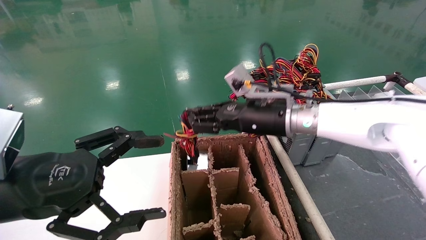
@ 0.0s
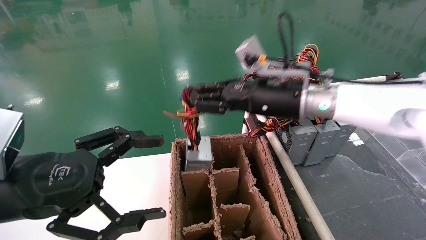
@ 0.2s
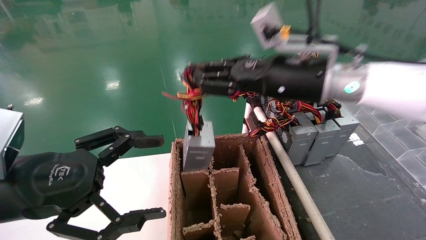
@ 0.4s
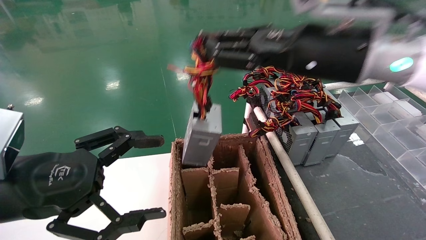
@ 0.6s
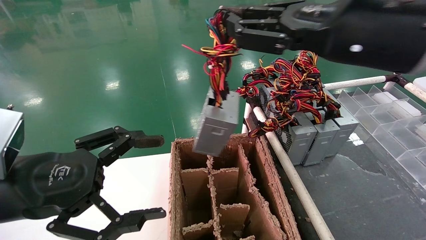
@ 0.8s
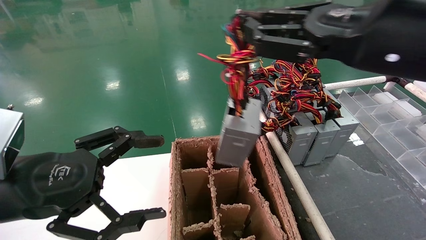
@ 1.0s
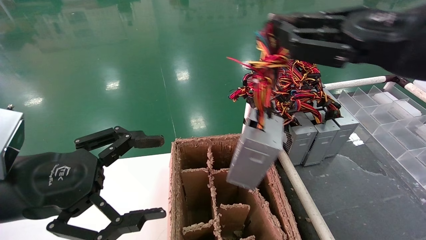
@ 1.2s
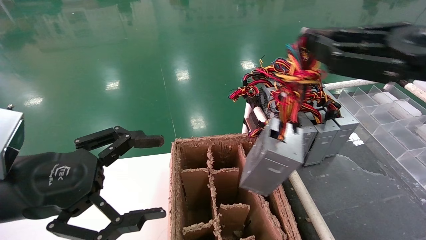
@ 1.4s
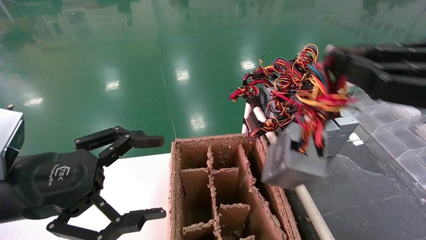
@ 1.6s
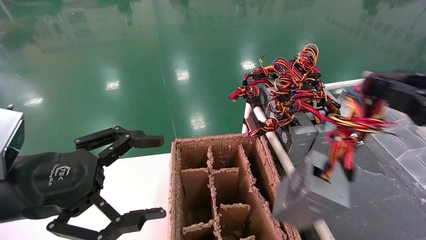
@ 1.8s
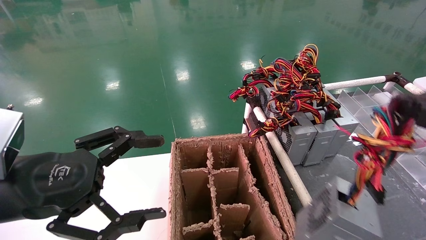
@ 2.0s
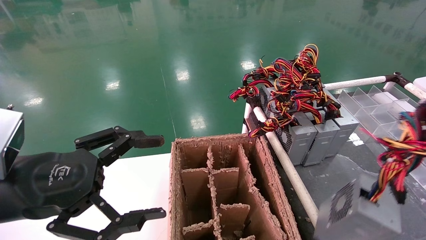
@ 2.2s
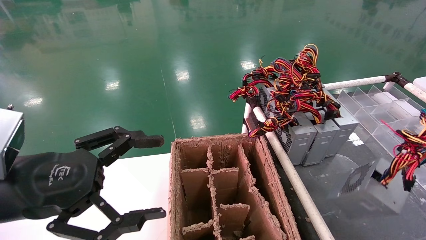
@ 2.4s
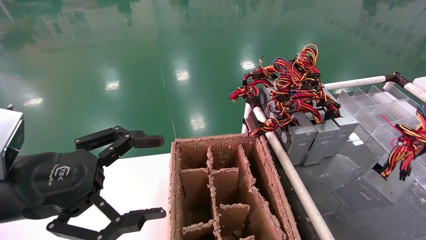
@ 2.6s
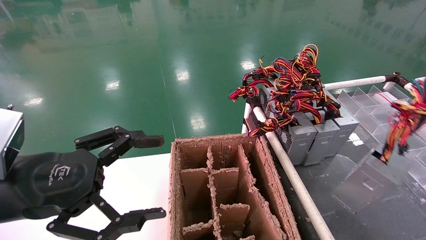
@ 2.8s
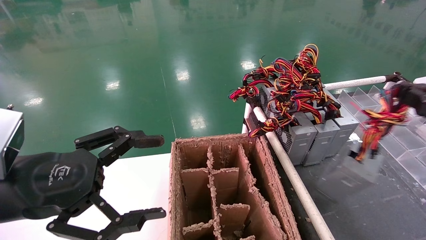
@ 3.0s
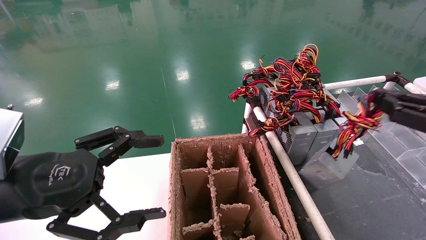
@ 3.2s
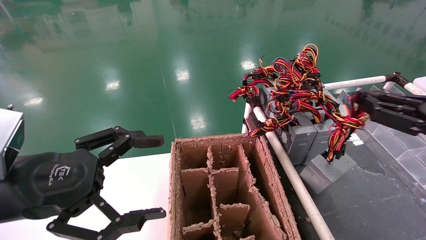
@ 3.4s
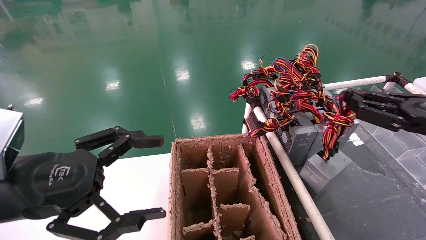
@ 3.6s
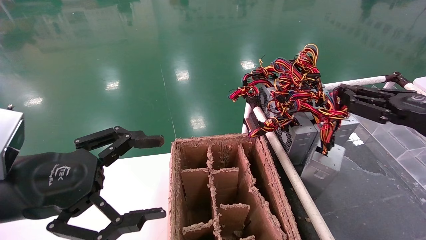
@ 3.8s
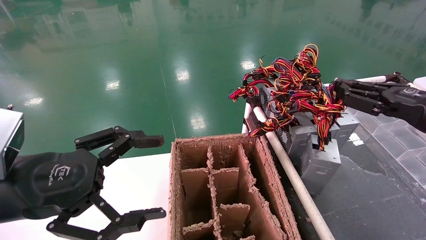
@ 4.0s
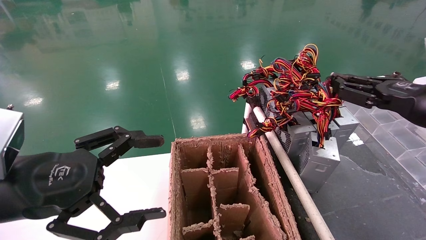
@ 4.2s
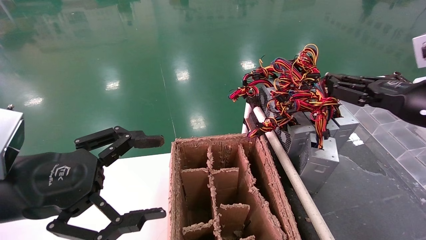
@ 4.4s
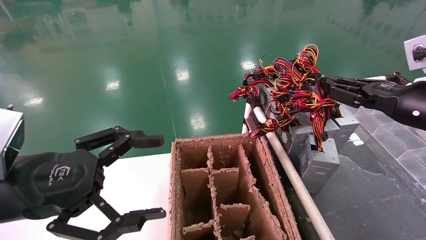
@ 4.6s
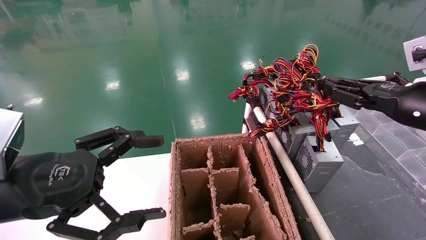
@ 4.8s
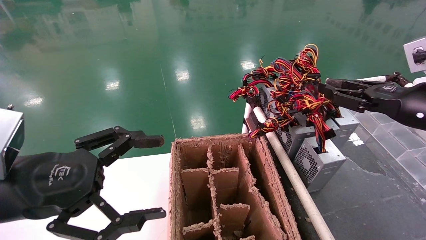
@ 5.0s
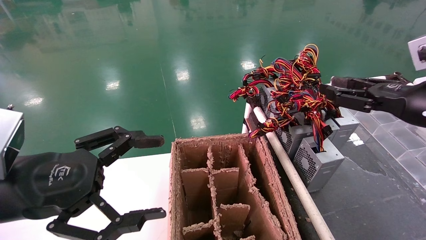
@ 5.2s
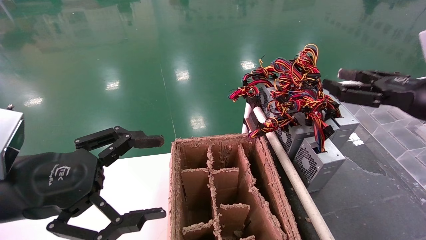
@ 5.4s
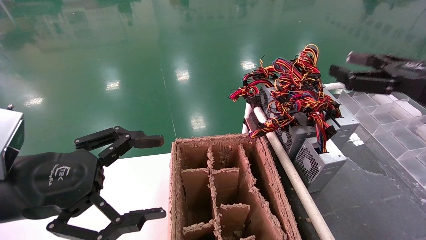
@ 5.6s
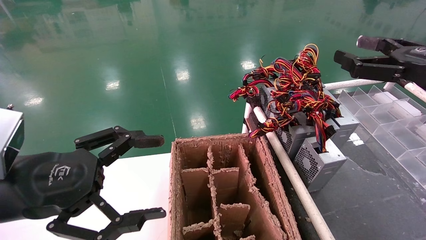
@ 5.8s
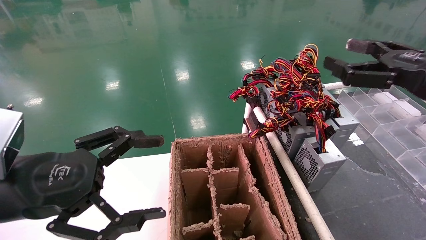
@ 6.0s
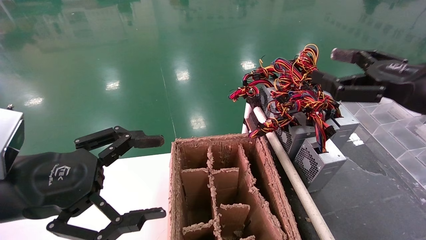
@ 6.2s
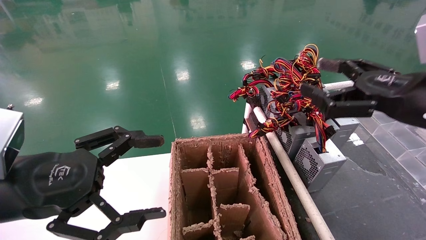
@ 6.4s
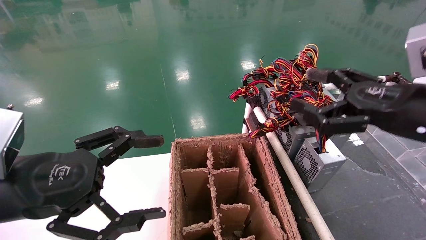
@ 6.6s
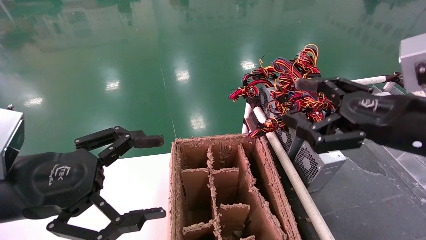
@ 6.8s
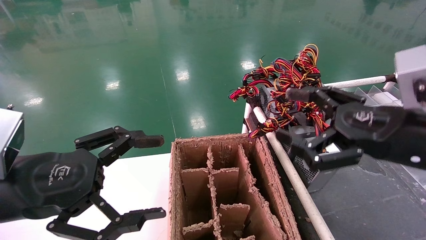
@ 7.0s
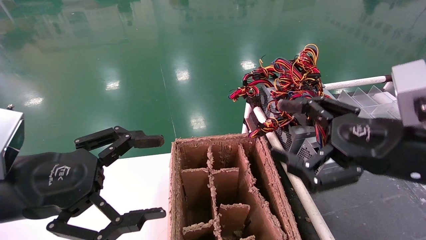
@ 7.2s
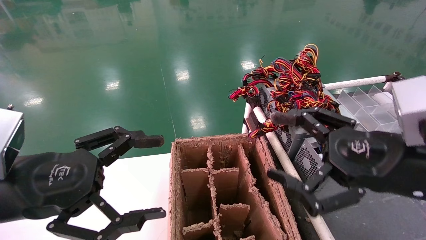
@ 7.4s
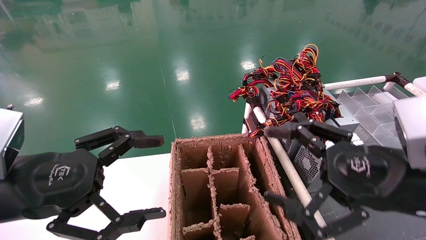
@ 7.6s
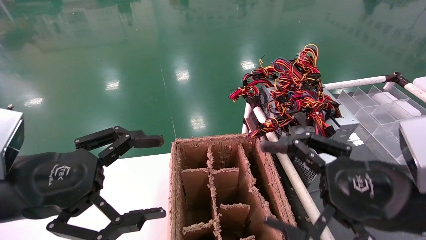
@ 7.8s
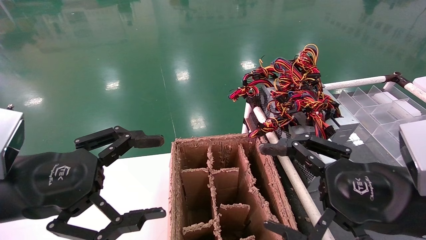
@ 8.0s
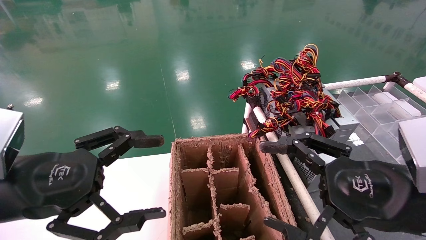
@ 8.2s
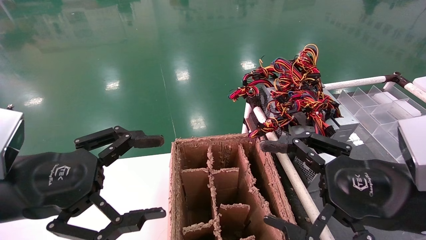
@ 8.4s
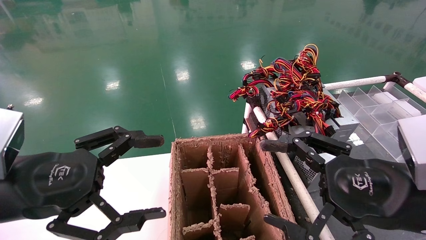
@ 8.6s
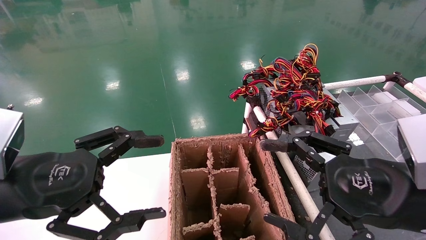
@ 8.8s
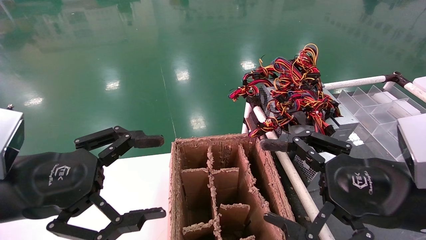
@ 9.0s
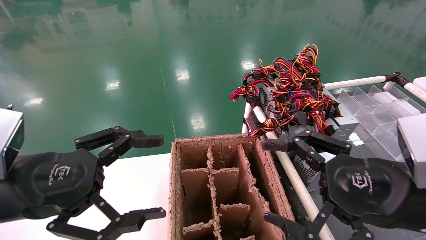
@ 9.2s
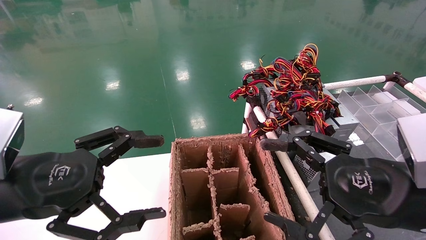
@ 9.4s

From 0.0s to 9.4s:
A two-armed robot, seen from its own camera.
Step, from 0.0s to 5.0s: Place the power supply on the operating table.
From 0.0s to 1.6s: The right gripper moves backward and to the right, some 30 cm.
From 1.6s to 3.2s: The right gripper is displaced downward and to the right by some 10 cm.
From 3.2s to 4.8s: The right gripper goes approximately 10 cm forward.
From 4.8s to 6.2s: The right gripper moves roughly 5 cm, and opens.
From 6.2s to 7.8s: The right gripper goes approximately 10 cm downward, to the left and backward.
From 7.8s to 9.4s: Neither gripper changes place.
